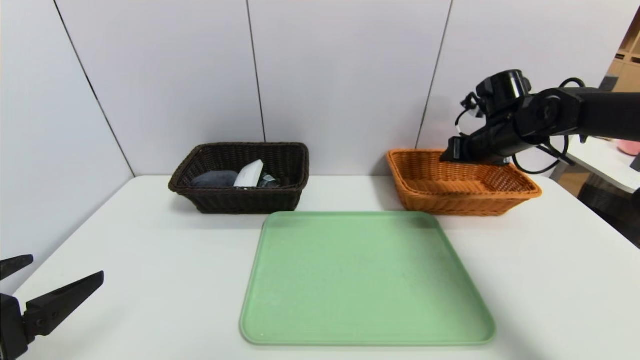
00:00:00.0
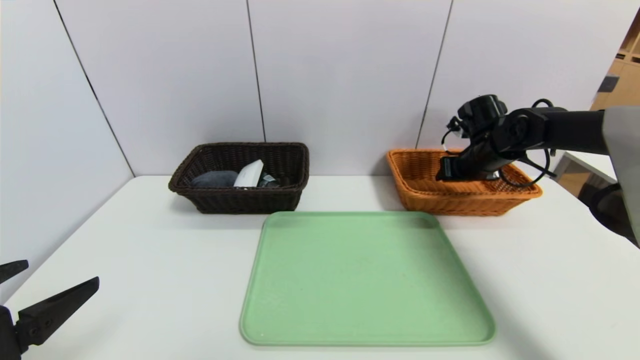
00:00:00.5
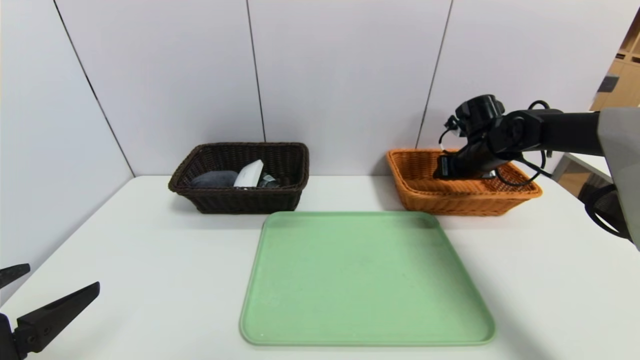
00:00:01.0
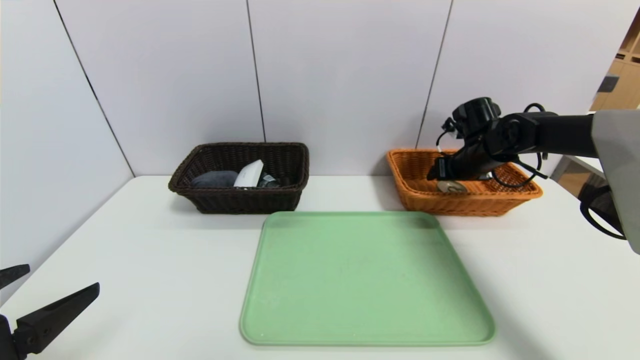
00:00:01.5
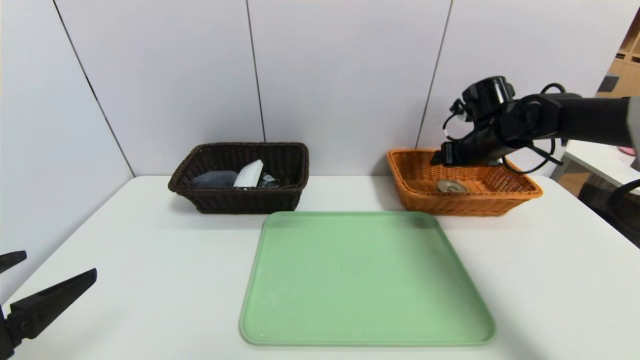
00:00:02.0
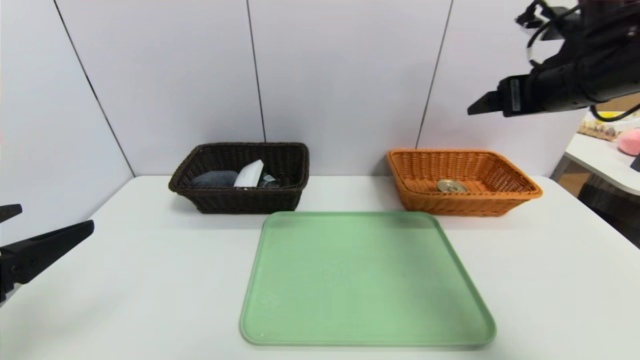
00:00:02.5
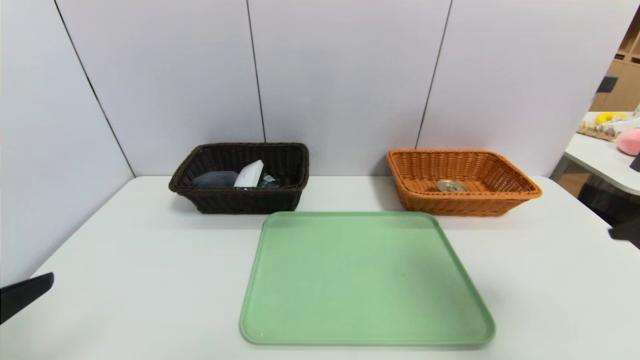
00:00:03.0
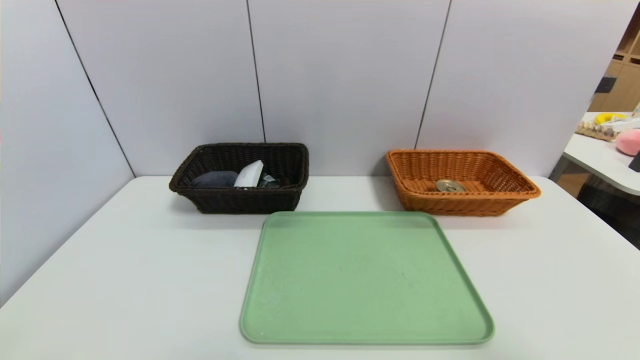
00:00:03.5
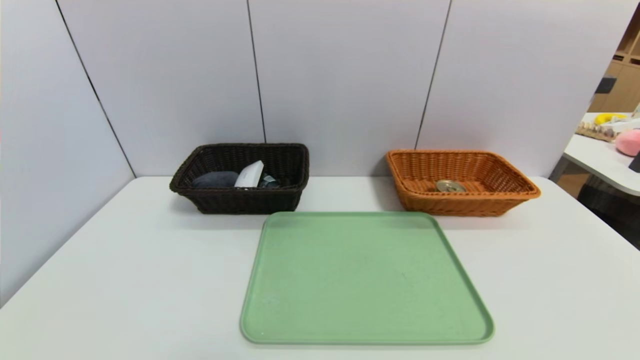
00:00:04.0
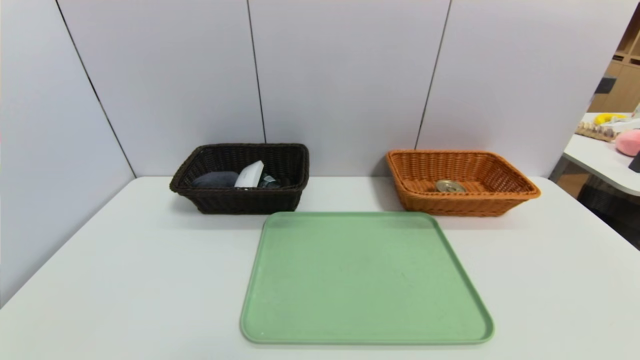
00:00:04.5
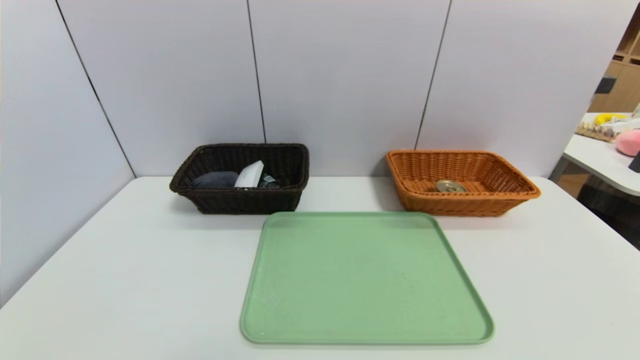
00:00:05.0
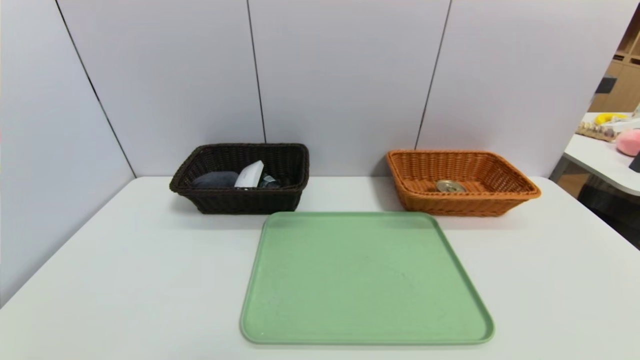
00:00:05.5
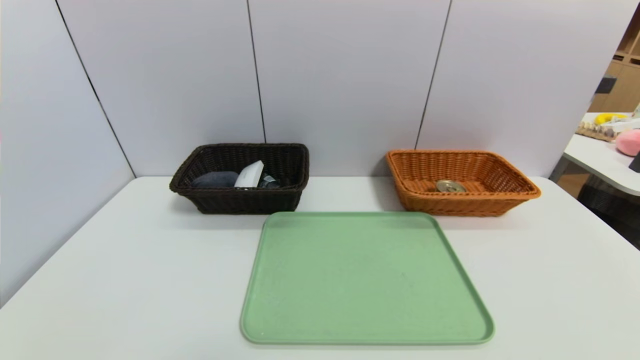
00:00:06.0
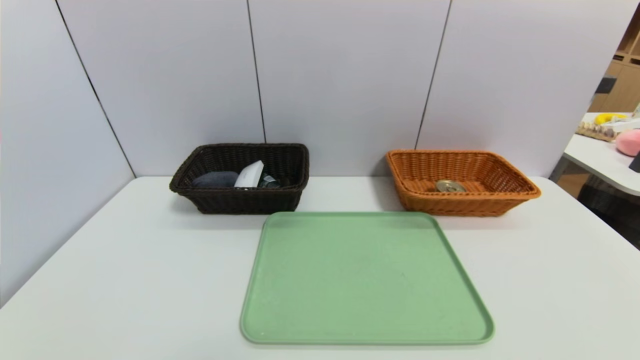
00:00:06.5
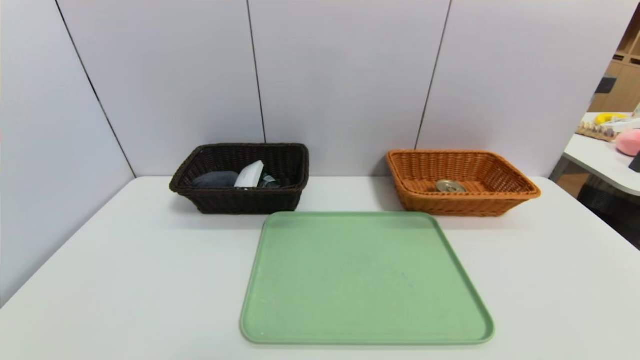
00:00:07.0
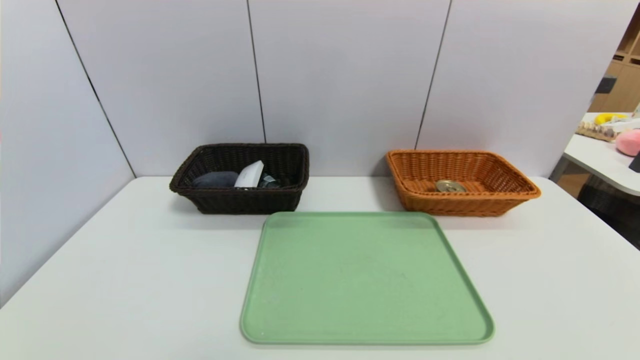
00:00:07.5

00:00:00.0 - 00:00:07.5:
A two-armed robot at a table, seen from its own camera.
Task of the whole recording: place the food in the right basket with the right gripper, and place the non food items in the left basket with the left gripper.
00:00:00.0 - 00:00:02.0: The right gripper opens.
00:00:02.0 - 00:00:04.0: The right gripper shifts roughly 50 cm backward, while the left gripper goes roughly 15 cm backward.

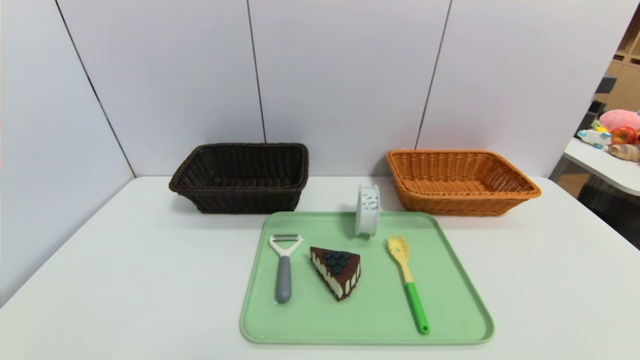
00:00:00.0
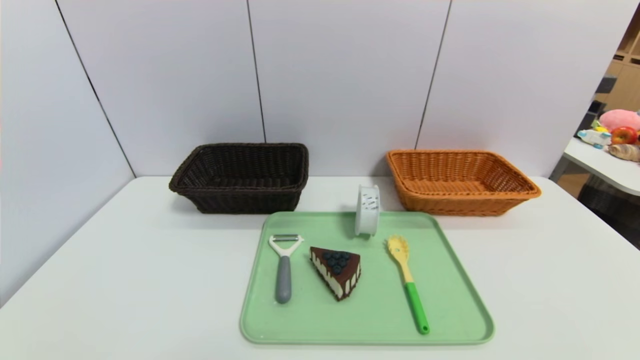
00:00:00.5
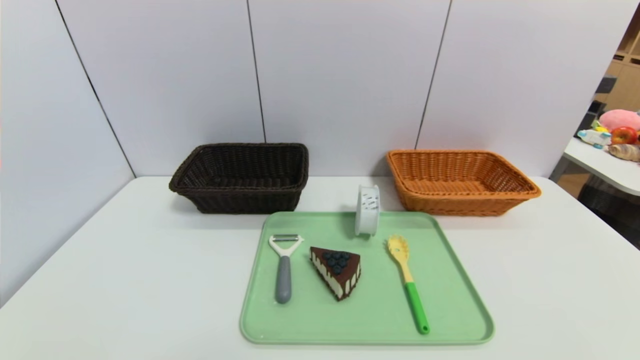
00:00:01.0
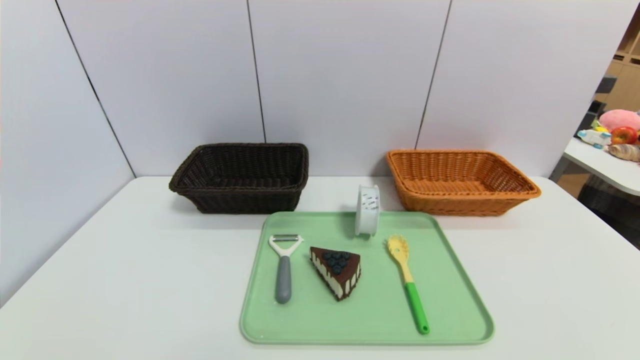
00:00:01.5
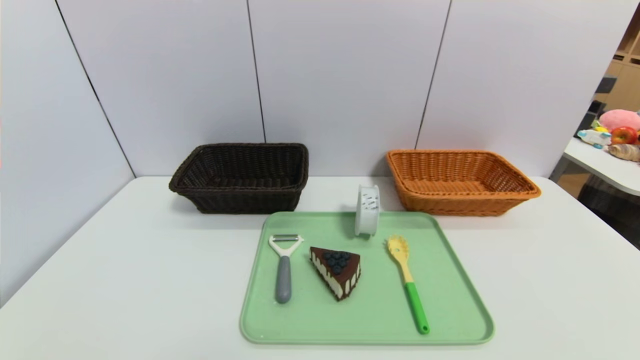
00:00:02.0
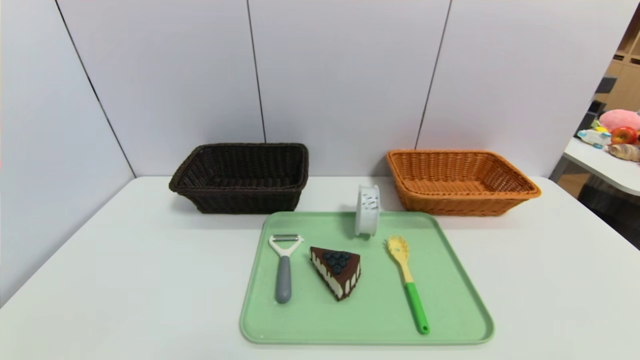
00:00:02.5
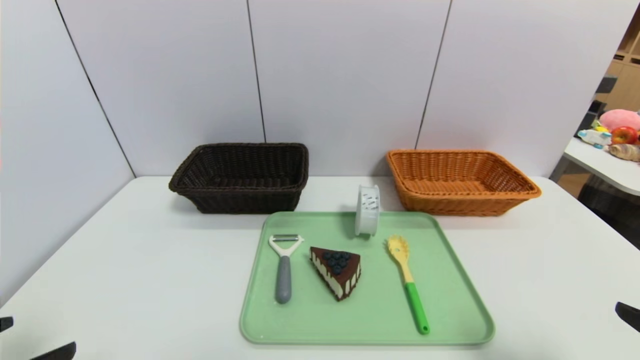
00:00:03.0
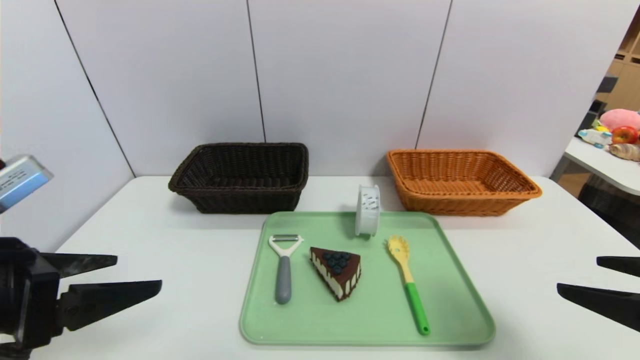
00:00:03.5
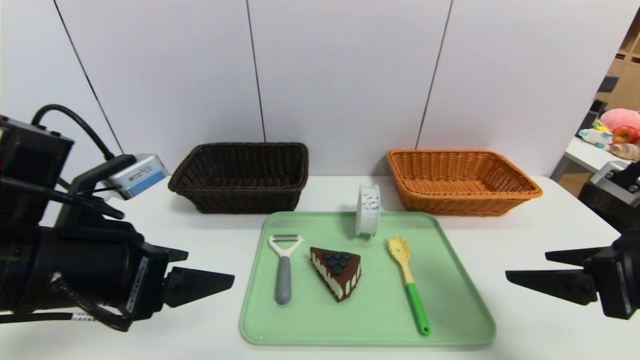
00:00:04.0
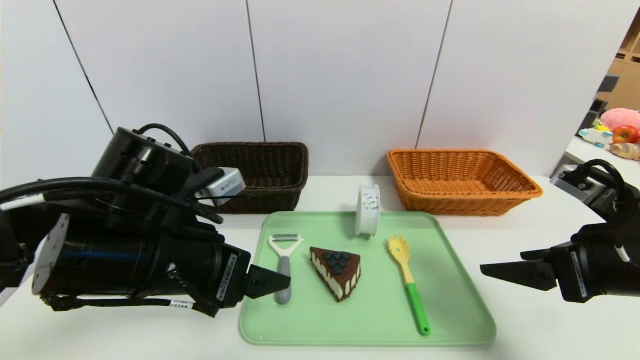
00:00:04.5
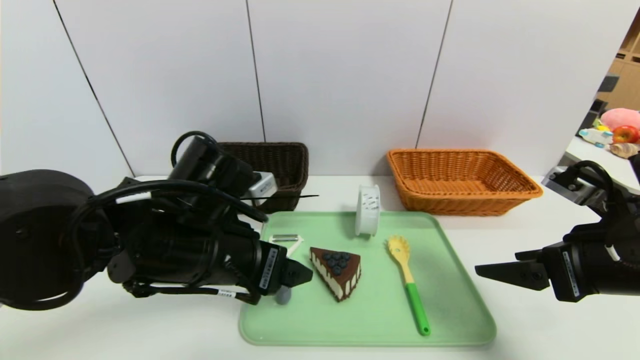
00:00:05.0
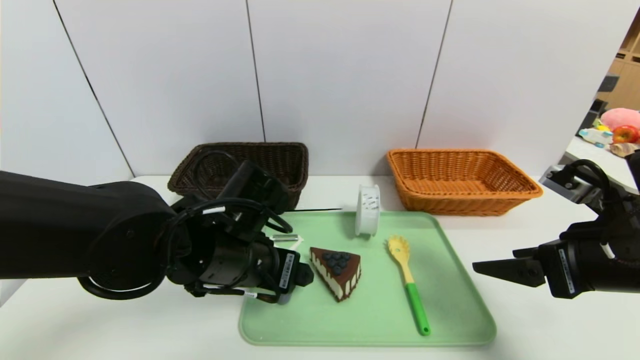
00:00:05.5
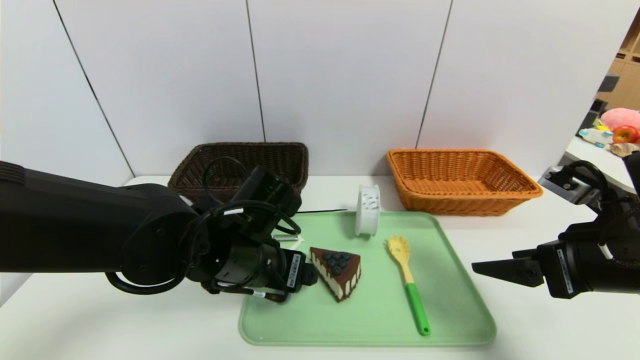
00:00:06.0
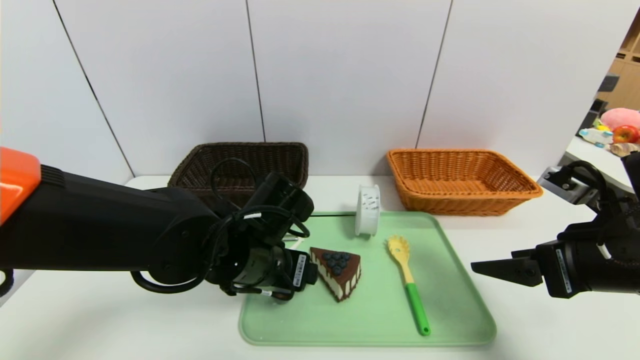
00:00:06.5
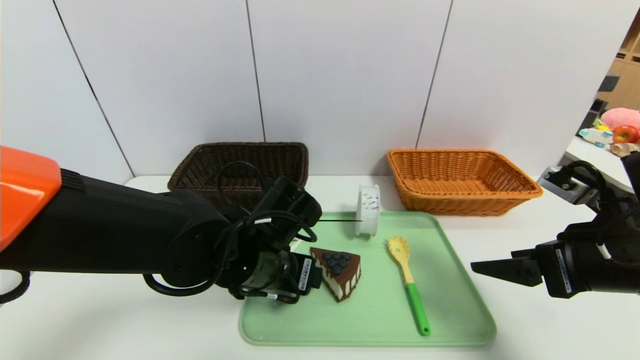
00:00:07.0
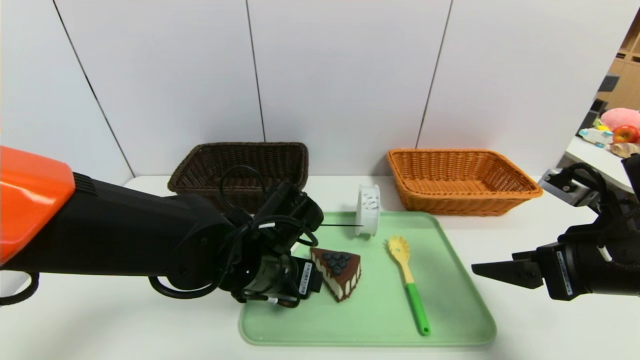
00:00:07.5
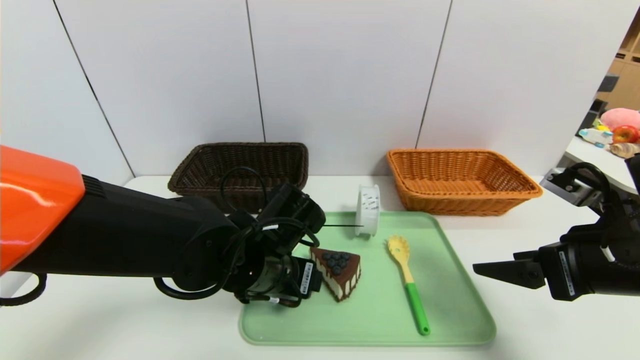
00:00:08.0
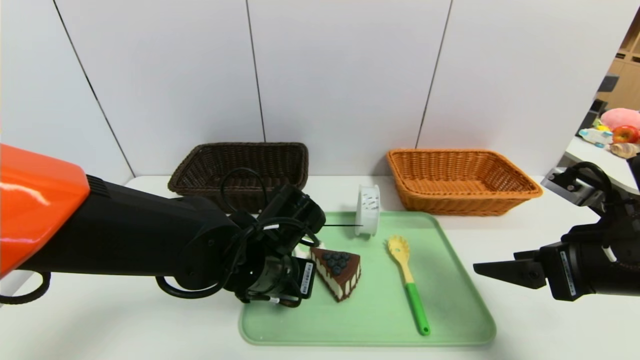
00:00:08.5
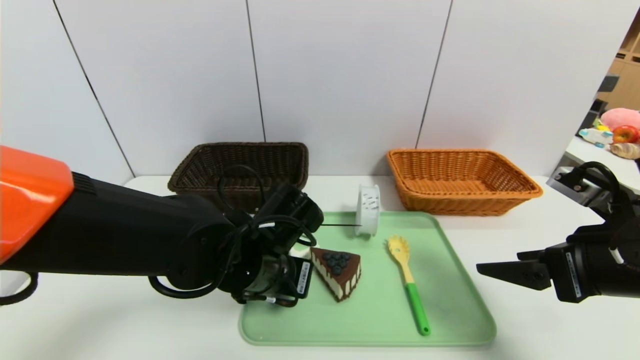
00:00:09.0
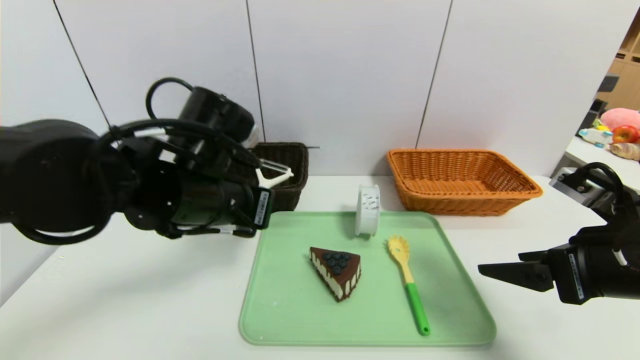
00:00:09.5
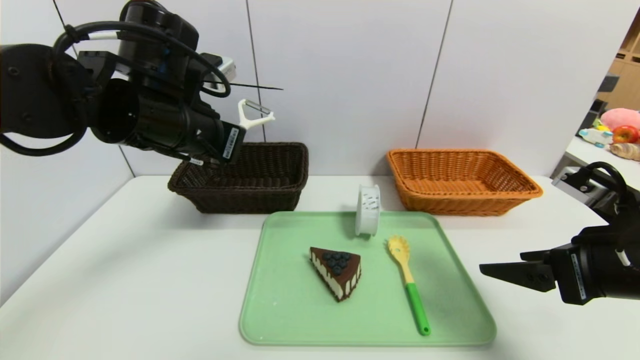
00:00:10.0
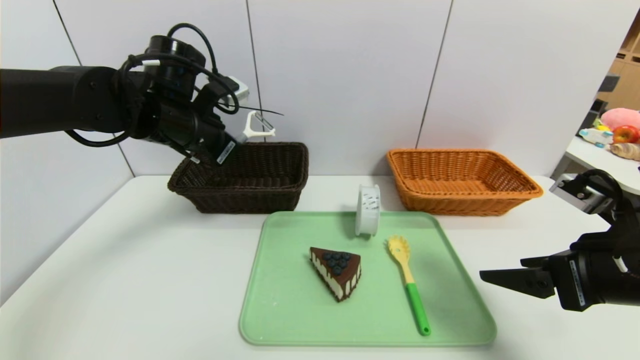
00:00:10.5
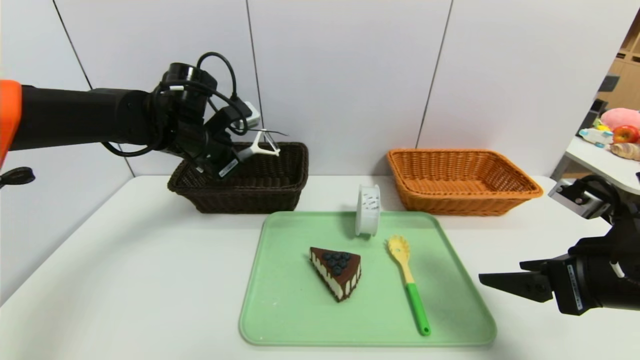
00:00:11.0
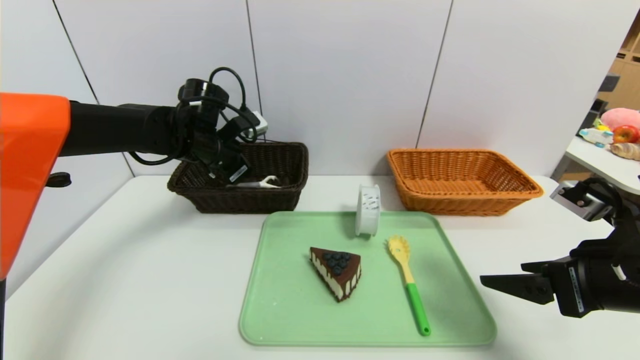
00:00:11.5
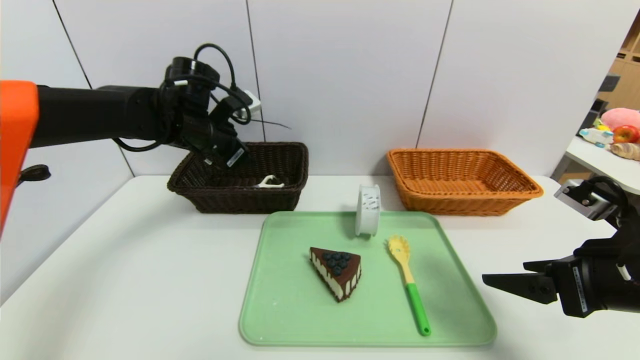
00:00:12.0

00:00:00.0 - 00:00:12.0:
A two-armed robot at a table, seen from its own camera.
Task of the whole recording: place the food in the right basket with the right gripper, and place the non food items in the left basket with the left gripper.
00:00:02.0 - 00:00:04.0: The left gripper heads forward, upward and to the right, covering some 25 cm; the right gripper travels forward and upward by roughly 20 cm.
00:00:04.0 - 00:00:06.0: The left gripper shifts some 15 cm to the right, downward and forward.
00:00:06.0 - 00:00:08.0: The grippers stay close to where they were, moving slightly.
00:00:08.0 - 00:00:10.0: The left gripper heads upward and to the left, covering about 20 cm, and closes up.
00:00:10.0 - 00:00:12.0: The left gripper is displaced forward by approximately 10 cm, and opens.
